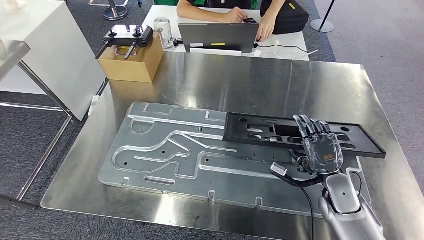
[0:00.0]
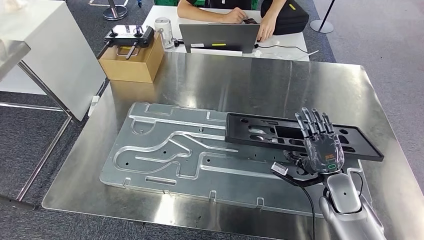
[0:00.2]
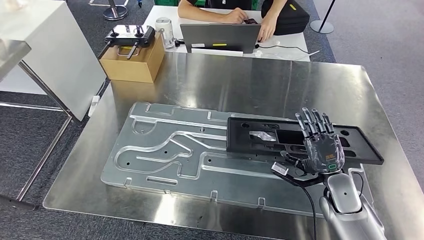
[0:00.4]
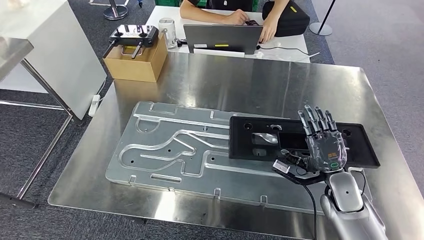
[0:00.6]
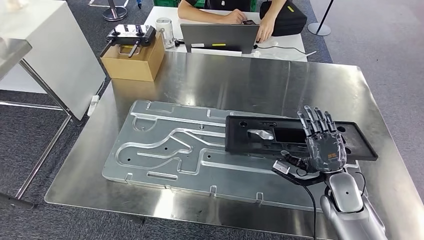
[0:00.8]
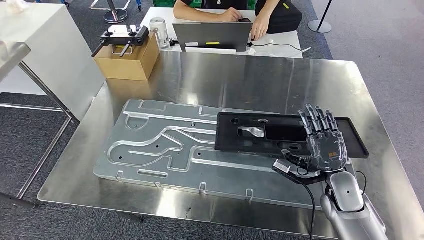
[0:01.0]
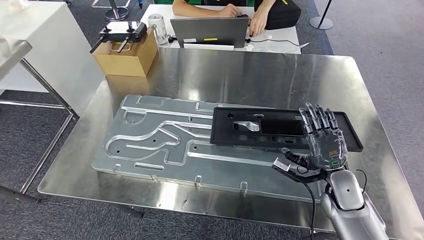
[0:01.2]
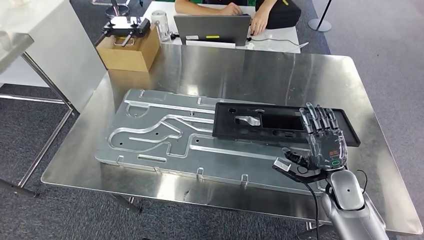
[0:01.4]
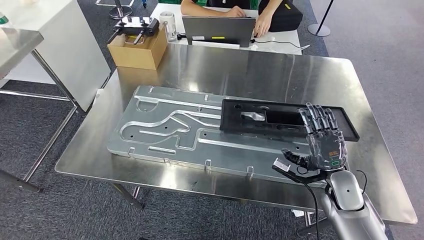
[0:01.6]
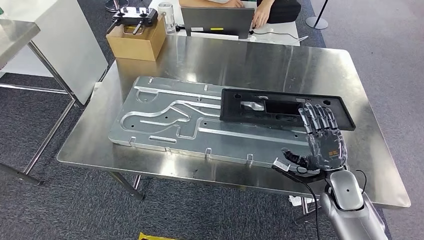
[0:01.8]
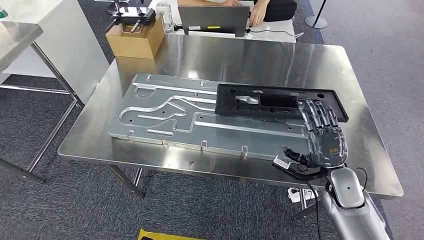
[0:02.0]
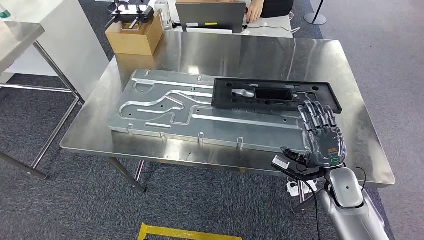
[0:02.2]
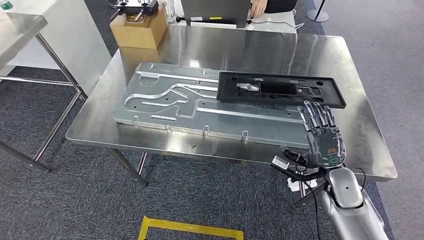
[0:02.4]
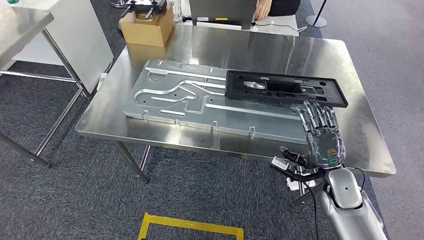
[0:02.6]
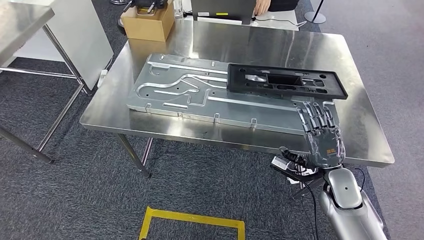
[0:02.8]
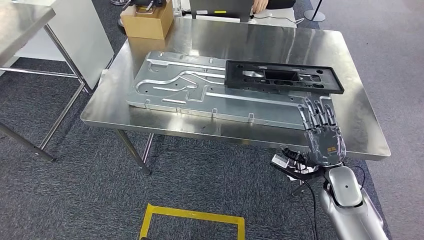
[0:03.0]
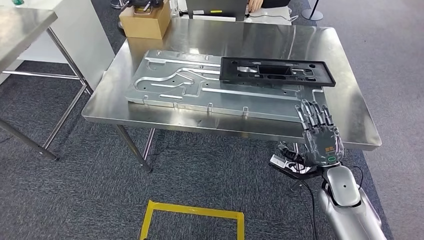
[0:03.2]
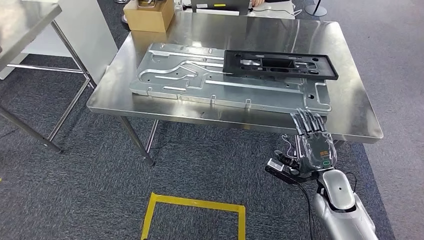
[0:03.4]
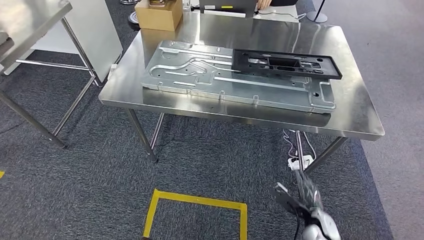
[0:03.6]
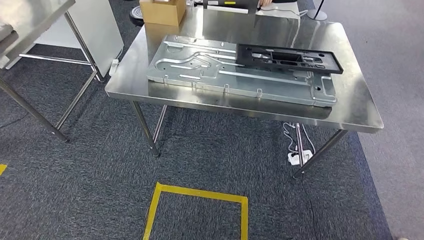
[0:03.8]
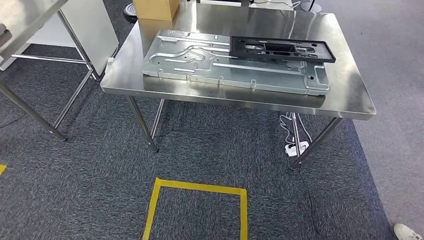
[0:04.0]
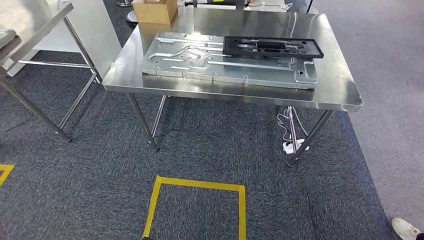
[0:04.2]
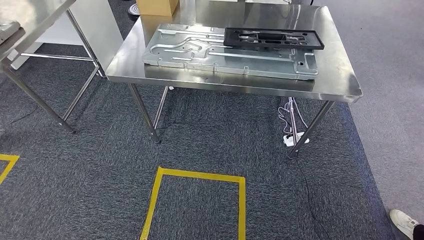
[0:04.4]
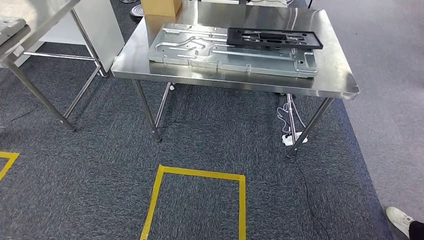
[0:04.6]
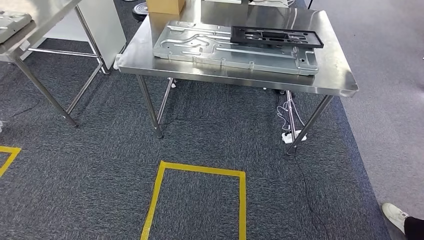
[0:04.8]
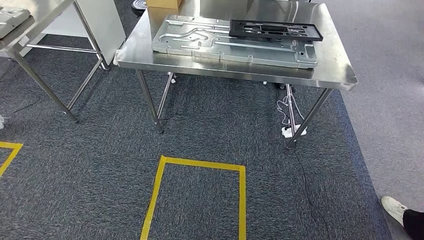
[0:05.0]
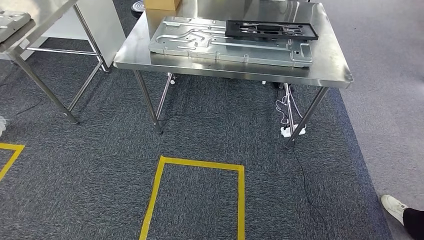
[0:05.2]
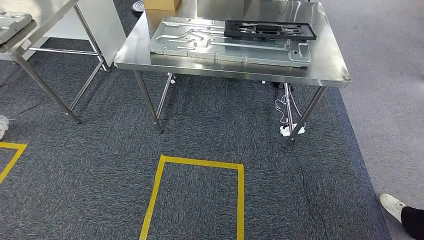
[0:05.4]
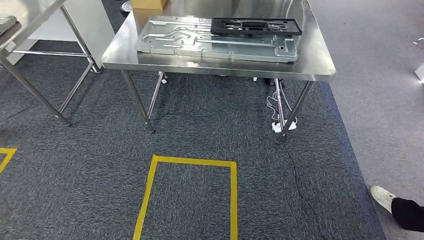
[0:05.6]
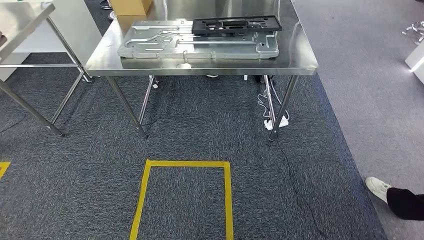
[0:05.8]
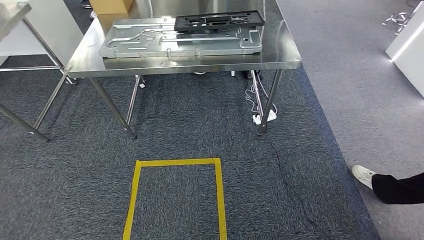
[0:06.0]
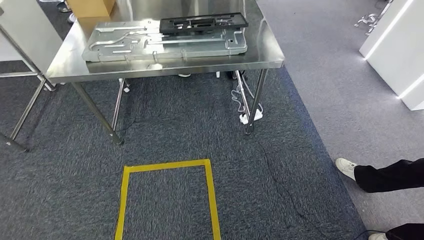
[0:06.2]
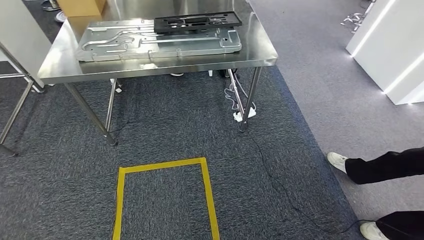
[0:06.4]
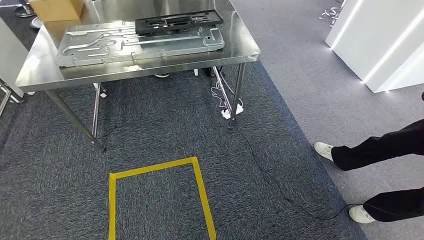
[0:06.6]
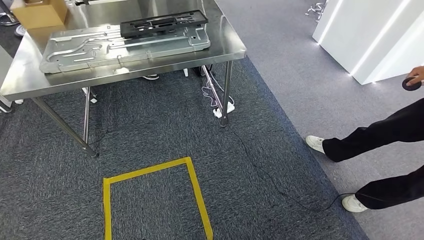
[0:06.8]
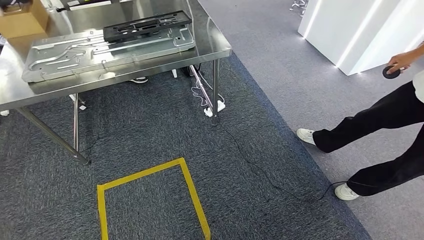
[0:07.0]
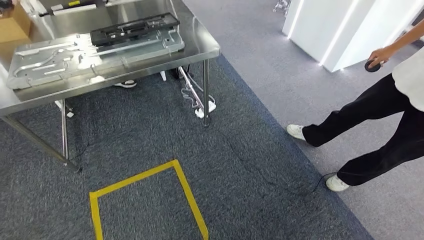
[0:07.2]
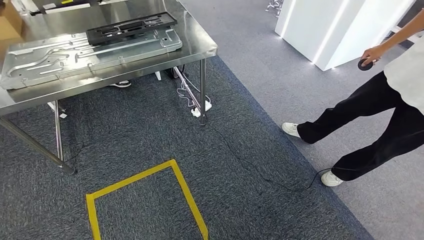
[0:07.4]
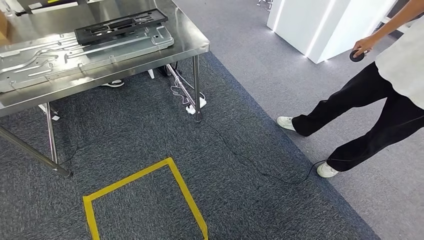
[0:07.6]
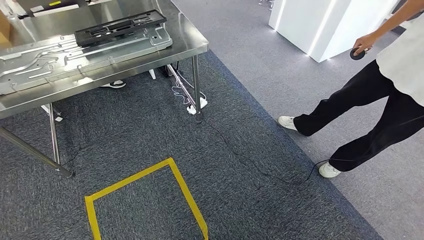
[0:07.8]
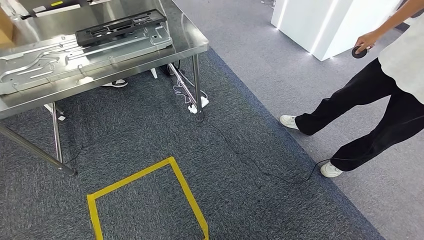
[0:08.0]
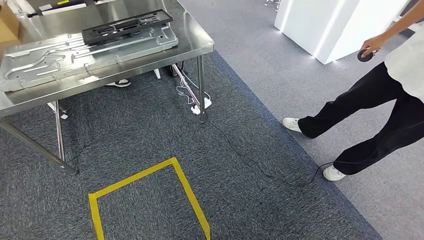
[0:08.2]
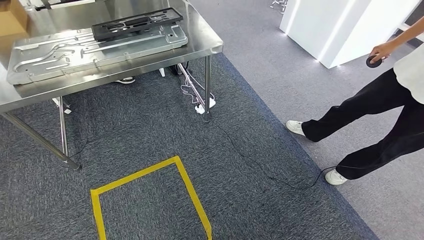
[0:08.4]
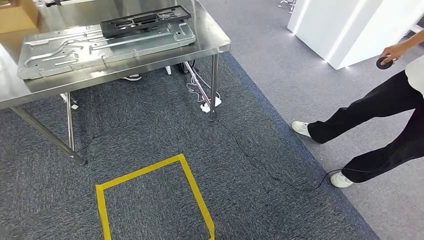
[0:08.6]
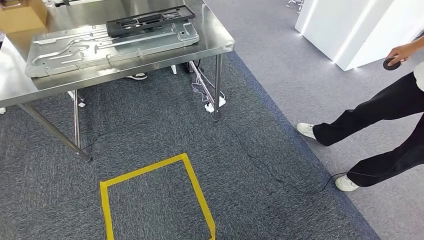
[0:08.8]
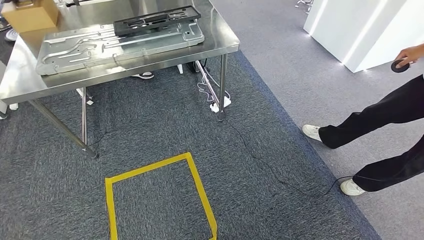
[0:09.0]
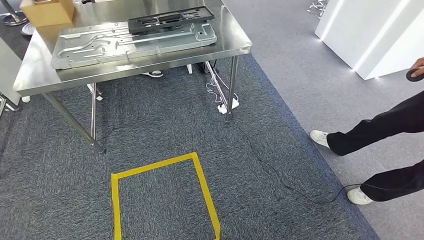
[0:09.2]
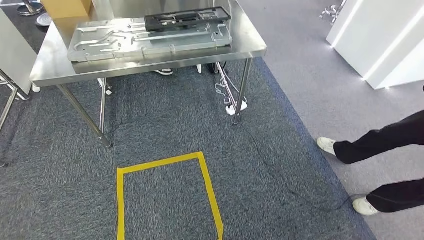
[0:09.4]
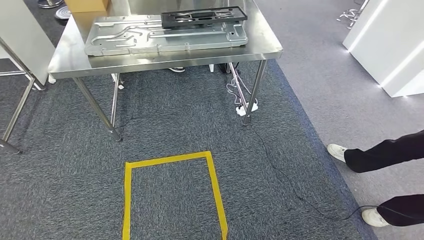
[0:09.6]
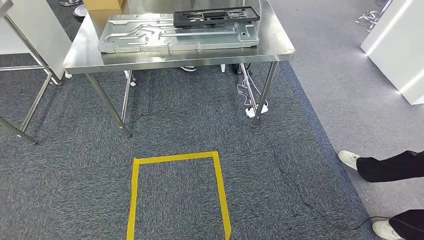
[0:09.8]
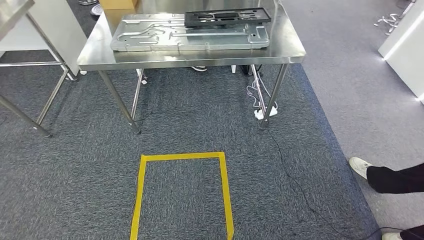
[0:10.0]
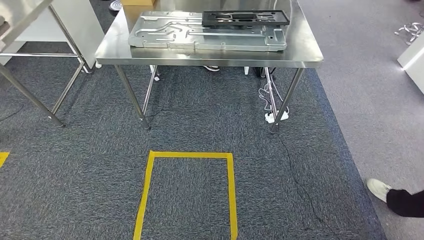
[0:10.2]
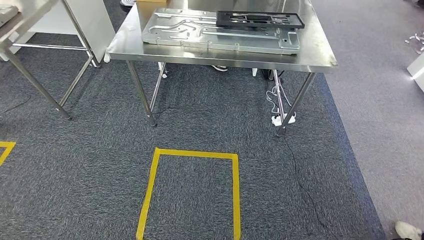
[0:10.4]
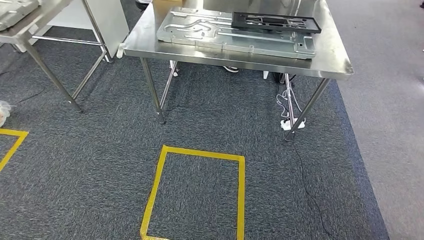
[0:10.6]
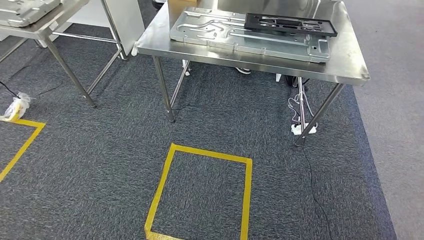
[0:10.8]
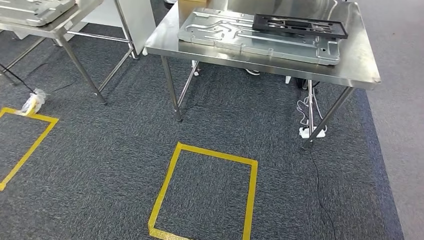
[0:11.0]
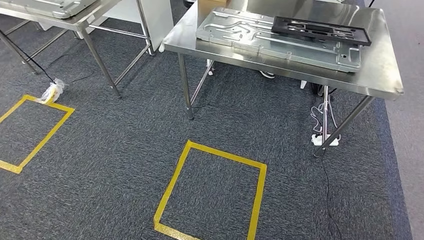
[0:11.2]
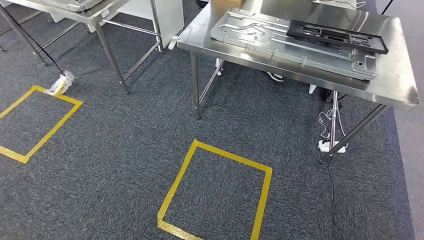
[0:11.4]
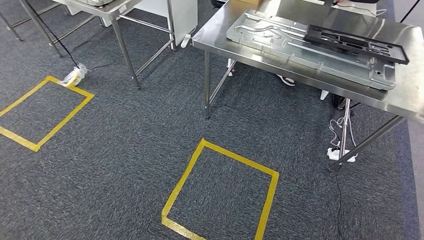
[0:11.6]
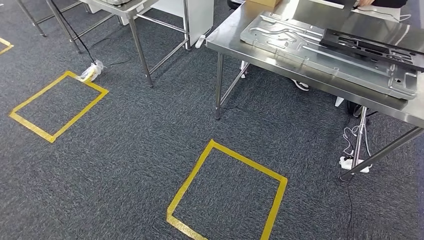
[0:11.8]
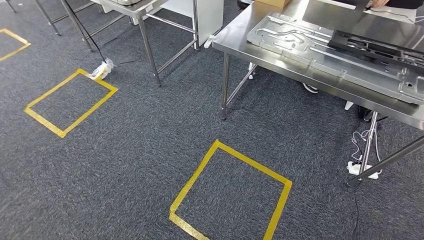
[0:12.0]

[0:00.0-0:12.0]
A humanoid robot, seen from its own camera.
Step, 0:00.0 to 0:03.2: Insert the large material into the corresponding slot on the workbench.

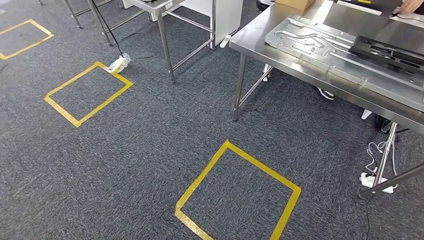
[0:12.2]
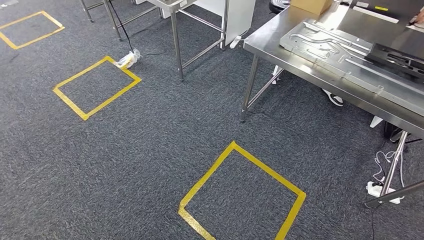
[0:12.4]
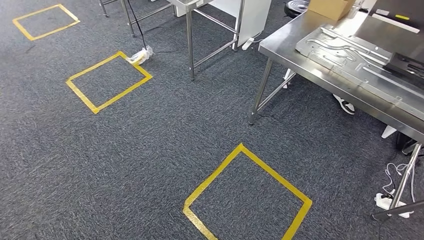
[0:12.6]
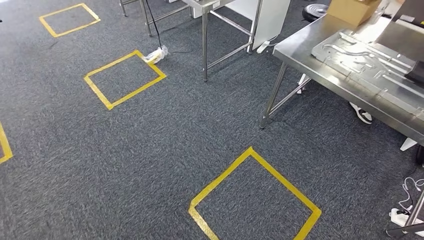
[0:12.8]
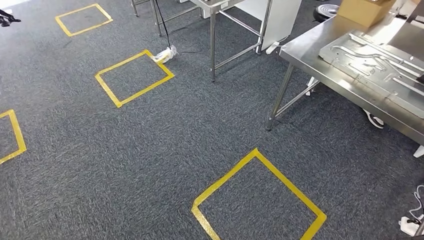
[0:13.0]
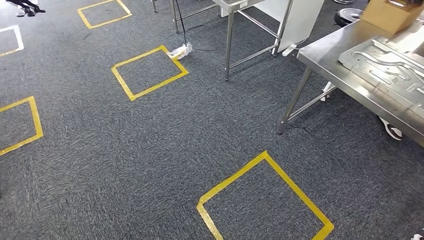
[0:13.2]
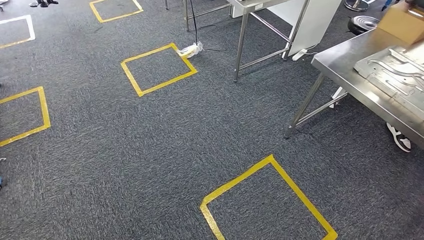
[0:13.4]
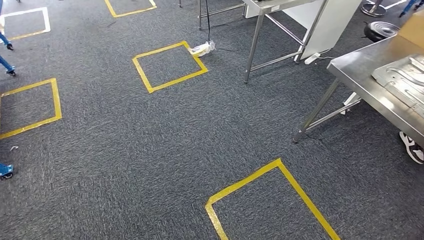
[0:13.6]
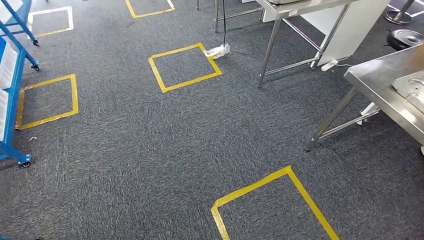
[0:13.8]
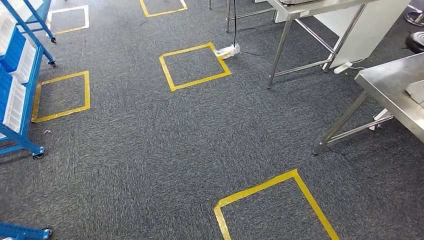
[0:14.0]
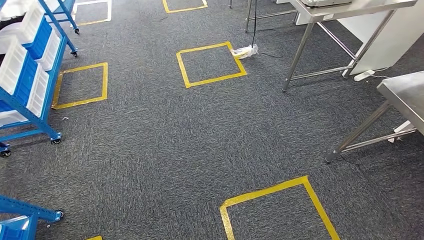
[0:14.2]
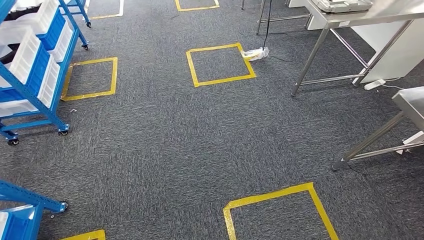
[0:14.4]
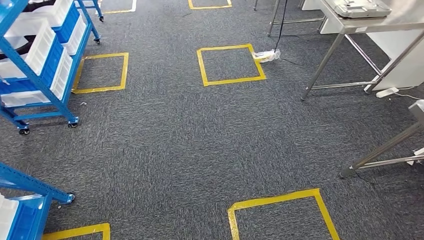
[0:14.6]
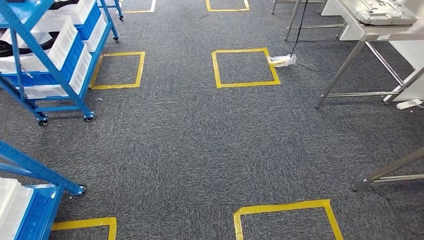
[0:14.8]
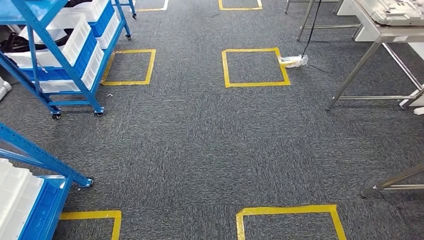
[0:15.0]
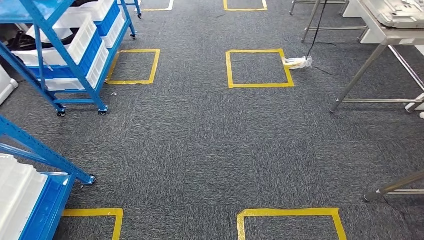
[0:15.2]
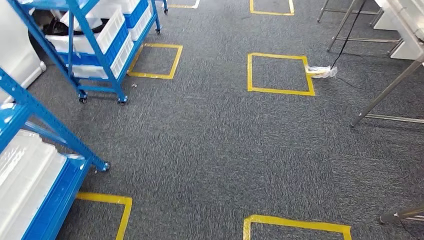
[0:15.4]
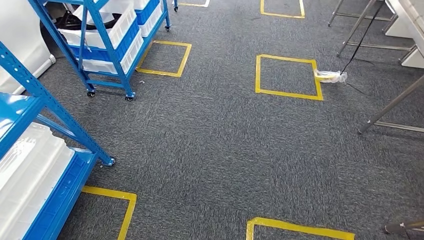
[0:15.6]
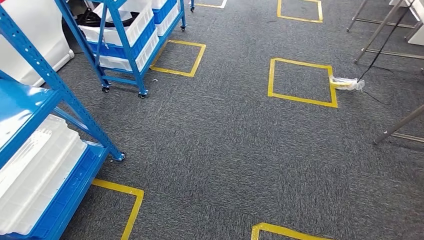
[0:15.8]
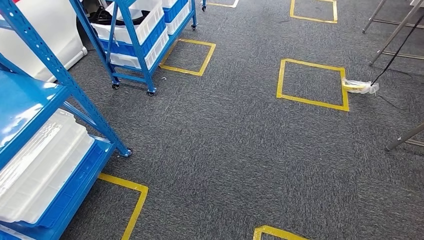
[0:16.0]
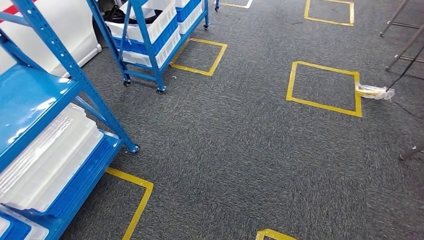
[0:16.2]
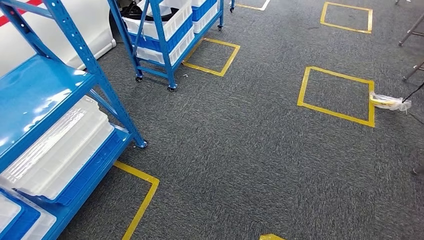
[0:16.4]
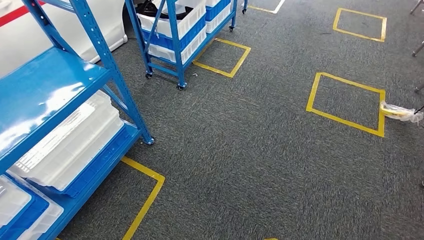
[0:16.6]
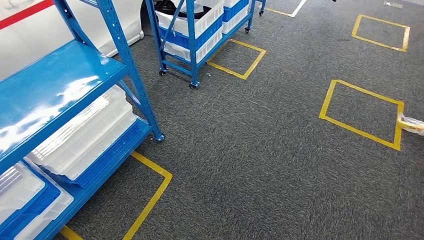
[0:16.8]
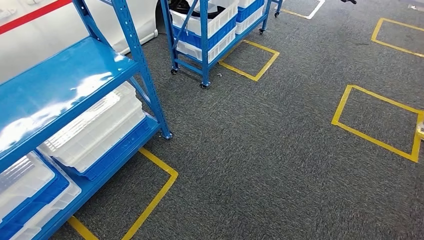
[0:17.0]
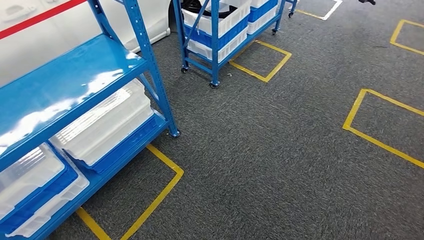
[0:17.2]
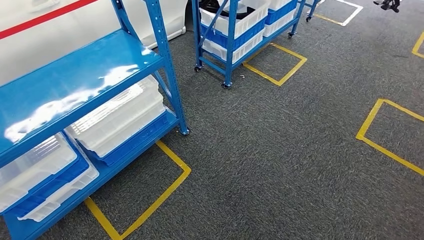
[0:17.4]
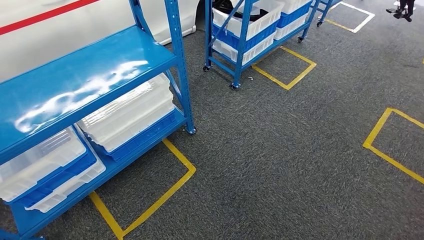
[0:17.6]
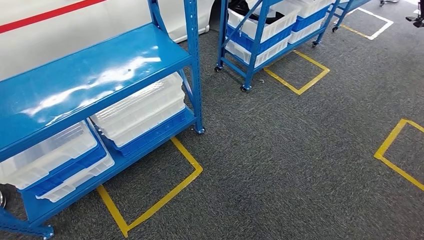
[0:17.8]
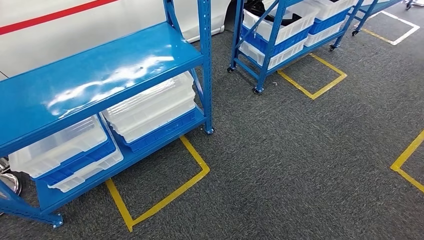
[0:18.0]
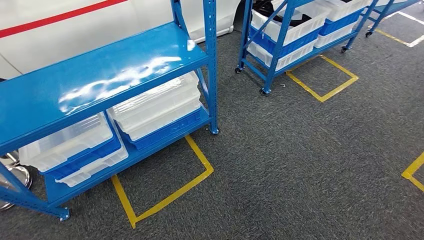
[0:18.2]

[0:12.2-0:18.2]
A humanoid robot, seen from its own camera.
Step, 0:12.2 to 0:18.2: Return to the initial position at the shelf.
